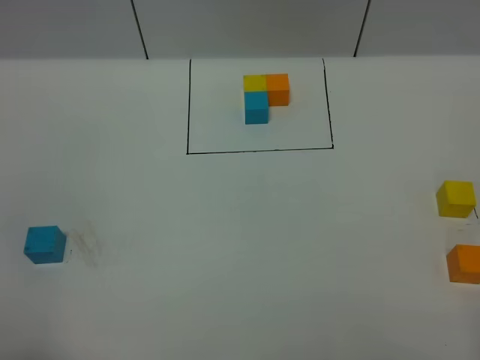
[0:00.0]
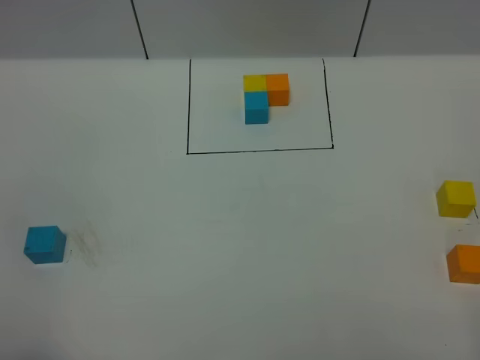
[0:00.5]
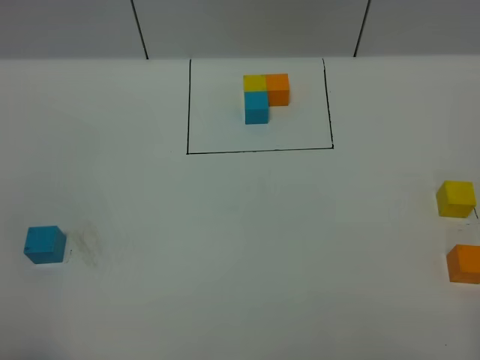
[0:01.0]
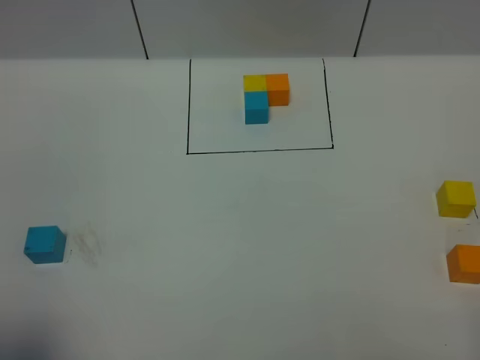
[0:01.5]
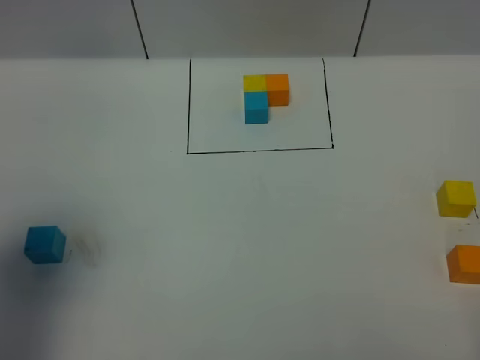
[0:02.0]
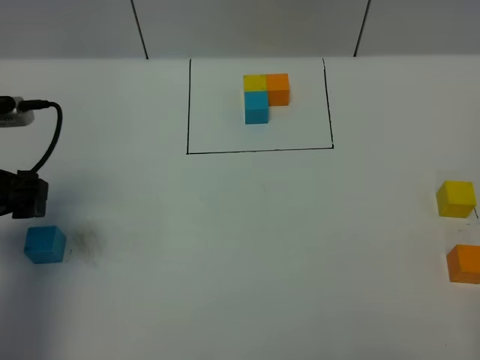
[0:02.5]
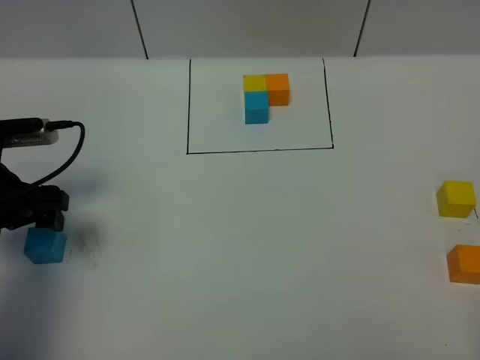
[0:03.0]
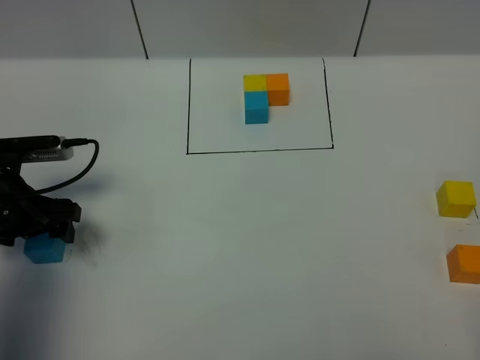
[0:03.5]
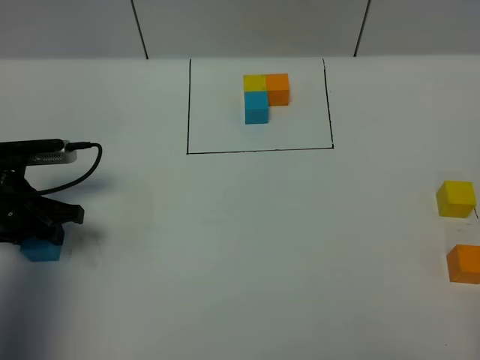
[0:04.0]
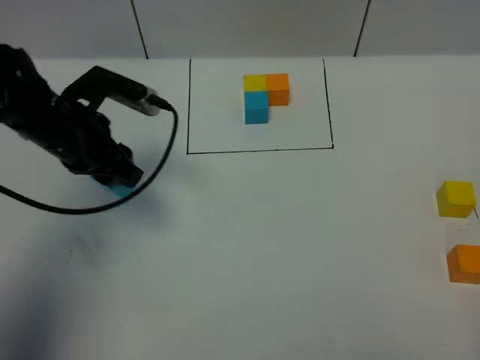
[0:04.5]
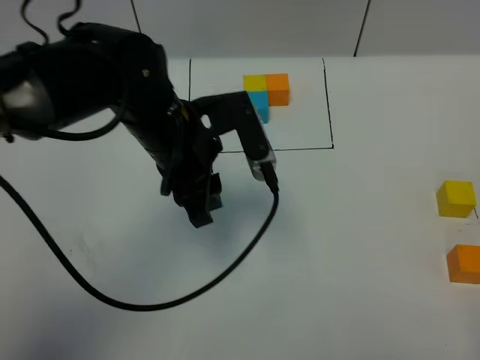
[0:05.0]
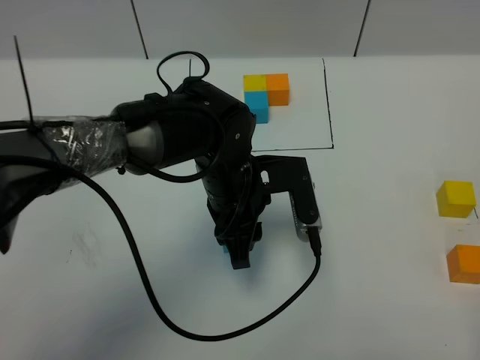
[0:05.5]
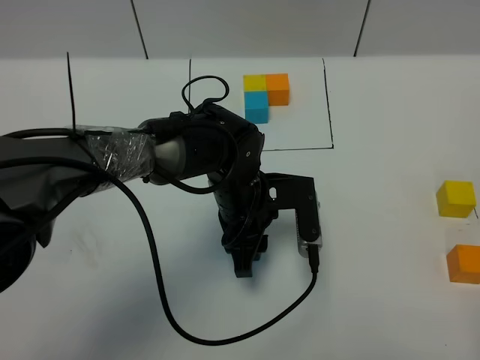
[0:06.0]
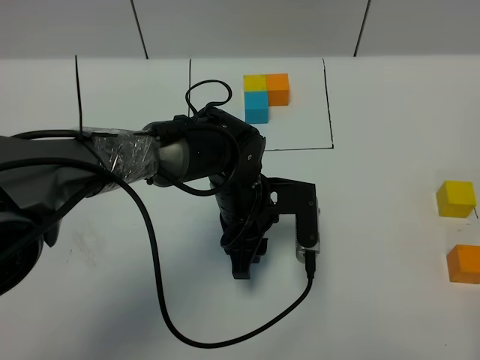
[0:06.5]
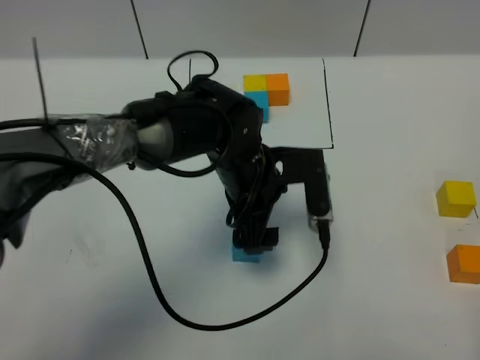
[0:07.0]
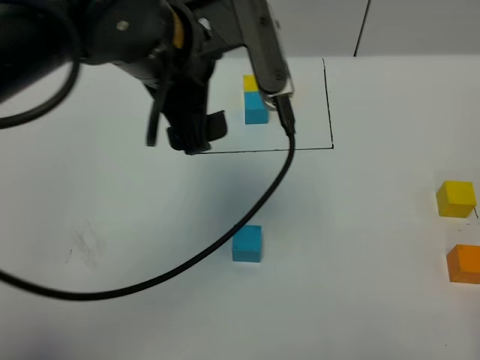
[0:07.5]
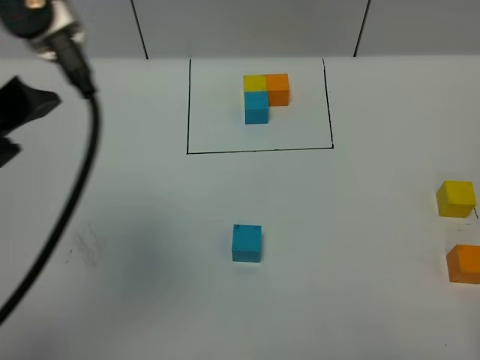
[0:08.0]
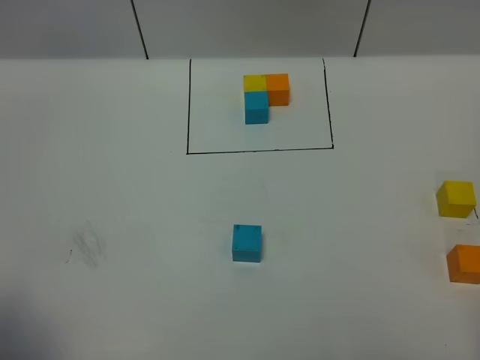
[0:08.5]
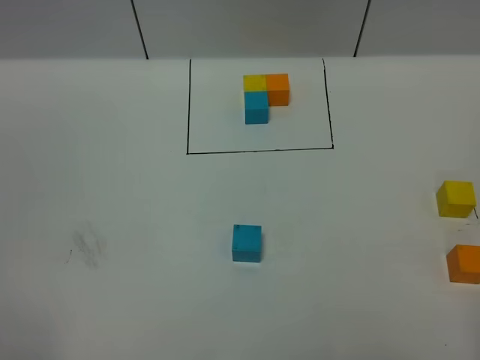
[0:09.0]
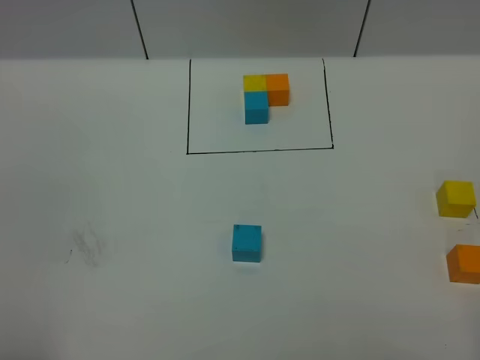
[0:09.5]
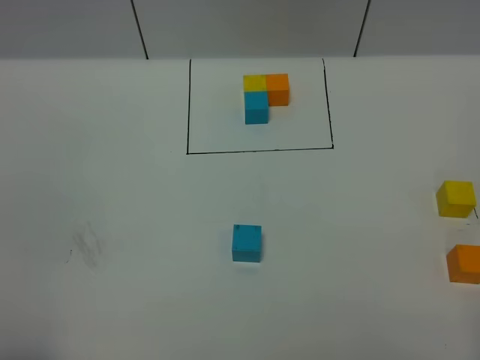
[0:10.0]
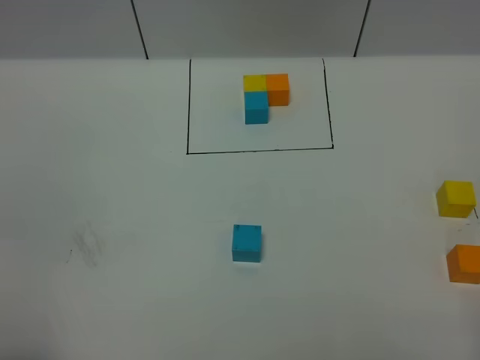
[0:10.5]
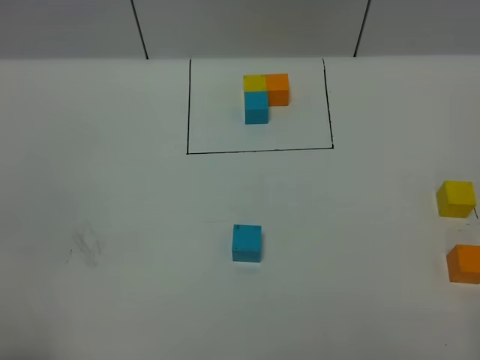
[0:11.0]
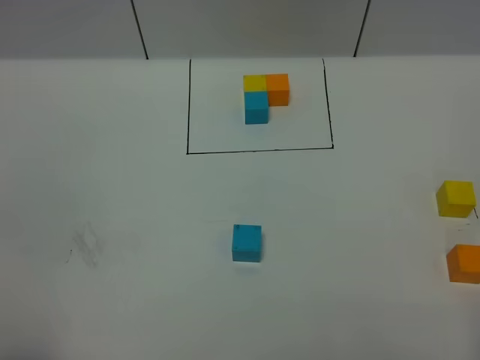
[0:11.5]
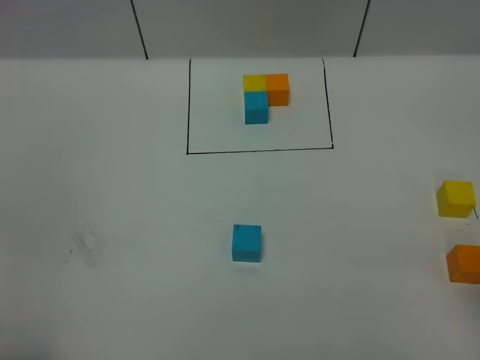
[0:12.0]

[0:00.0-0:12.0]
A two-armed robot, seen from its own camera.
Task of the whole recording: According to the building block template in front, assemble the scattered blocks together.
Step, 0:02.5 to 0:07.0: Put the blue cube in the center of the table.
0:00.0 to 0:02.0: The left gripper travels forward by about 20 cm.
0:02.0 to 0:04.0: The left gripper goes approximately 20 cm downward and forward, and closes up.
0:04.0 to 0:06.0: The left gripper moves to the right, roughly 30 cm.
0:06.0 to 0:08.0: The left gripper moves upward and to the left, some 40 cm, and opens up.
0:08.0 to 0:10.0: The left gripper heads downward, backward and to the left, covering some 30 cm.

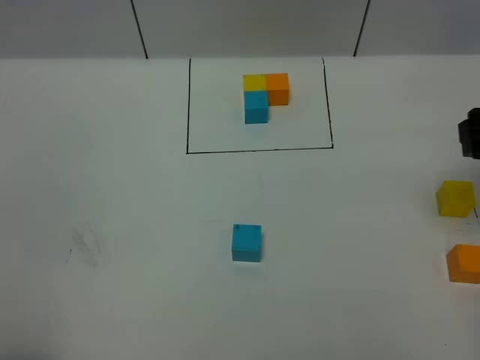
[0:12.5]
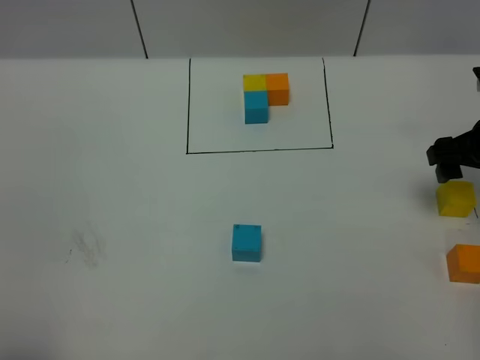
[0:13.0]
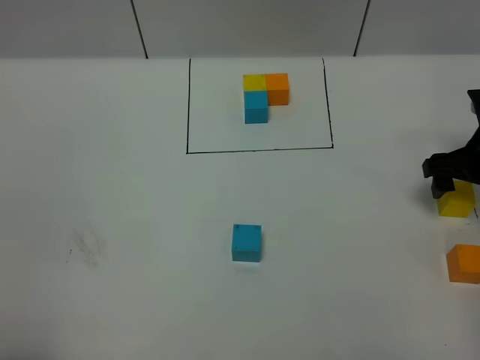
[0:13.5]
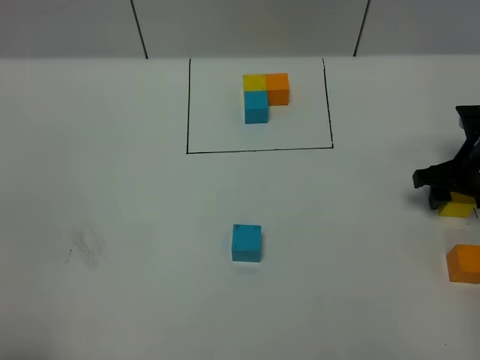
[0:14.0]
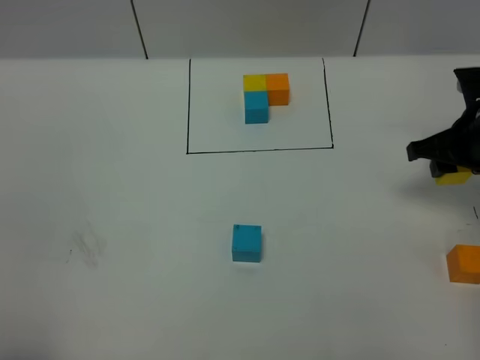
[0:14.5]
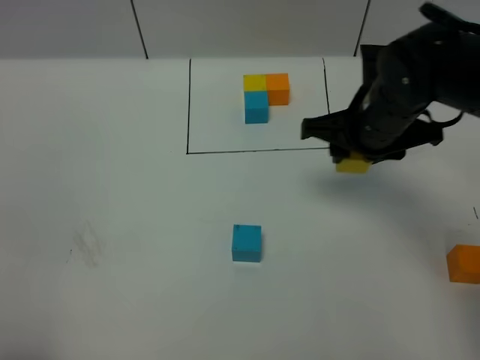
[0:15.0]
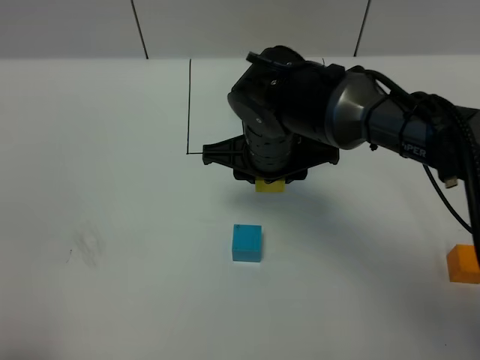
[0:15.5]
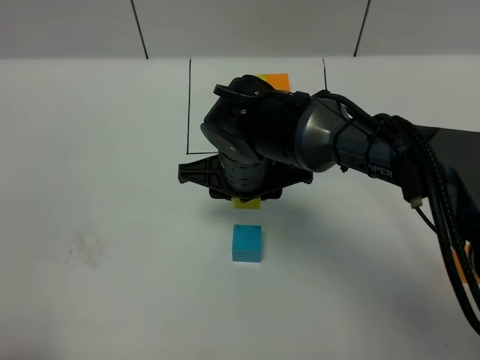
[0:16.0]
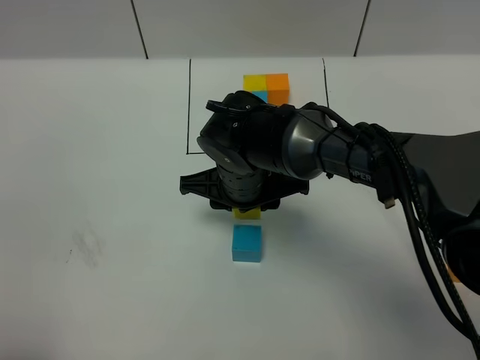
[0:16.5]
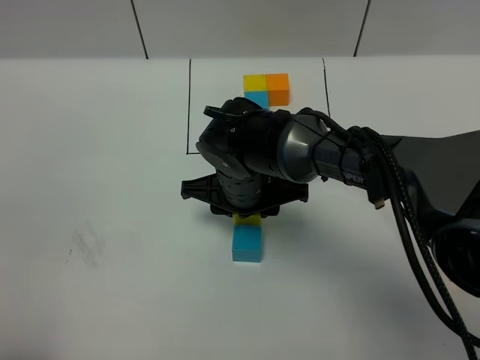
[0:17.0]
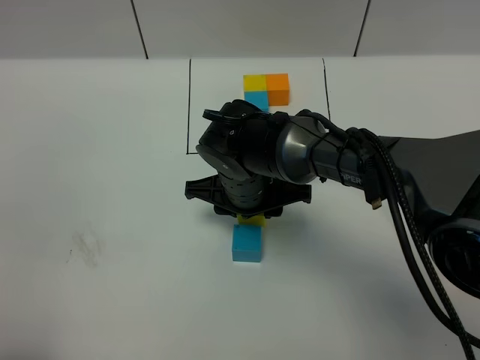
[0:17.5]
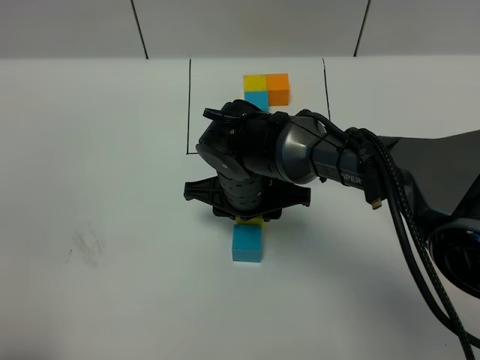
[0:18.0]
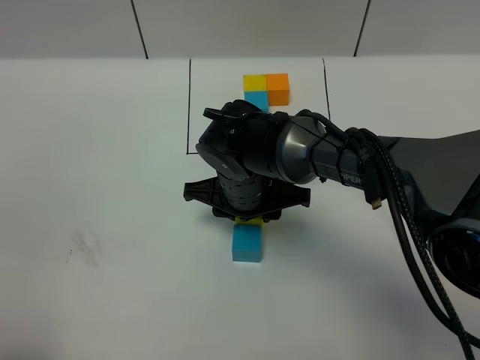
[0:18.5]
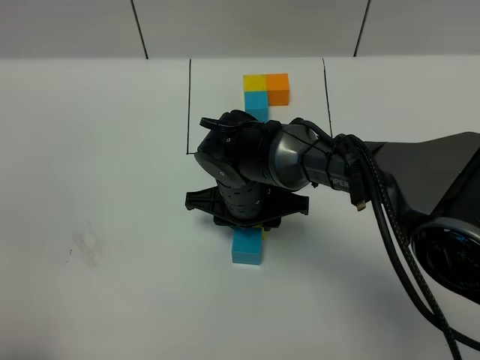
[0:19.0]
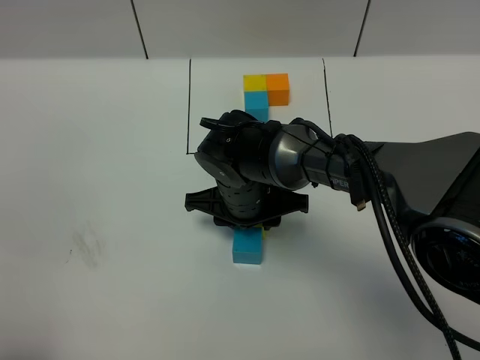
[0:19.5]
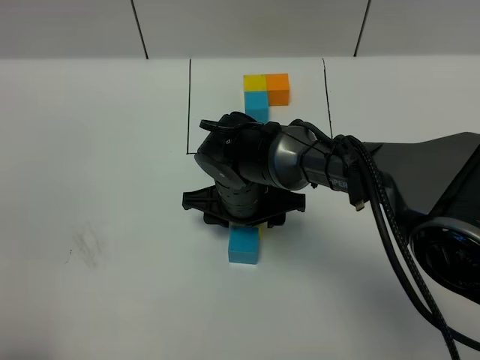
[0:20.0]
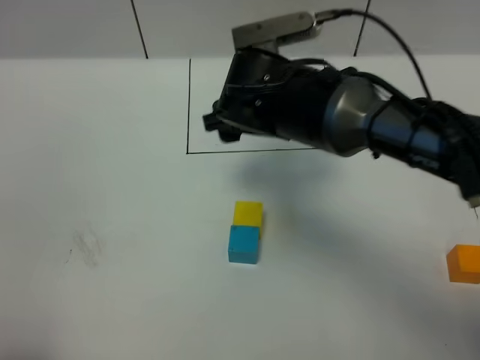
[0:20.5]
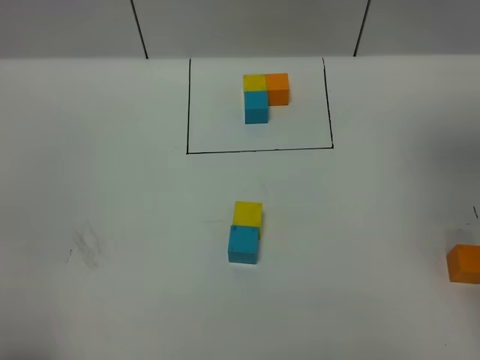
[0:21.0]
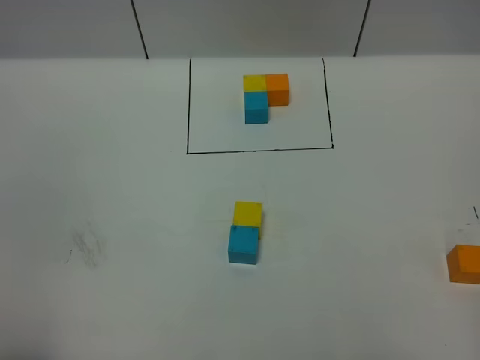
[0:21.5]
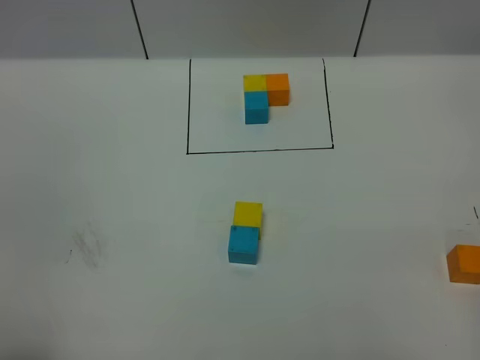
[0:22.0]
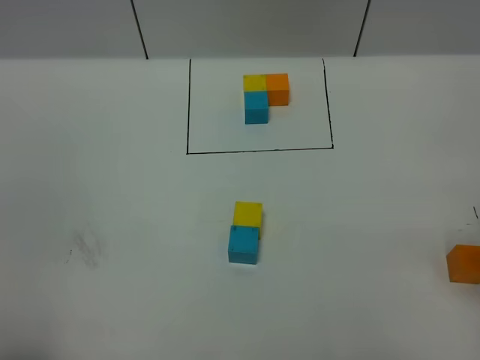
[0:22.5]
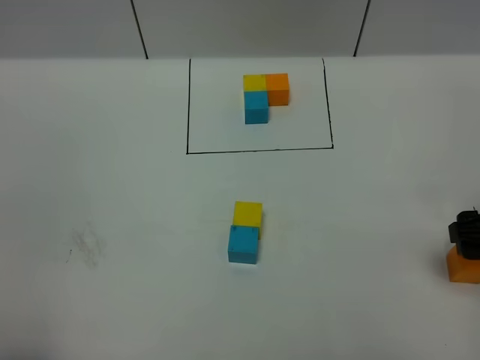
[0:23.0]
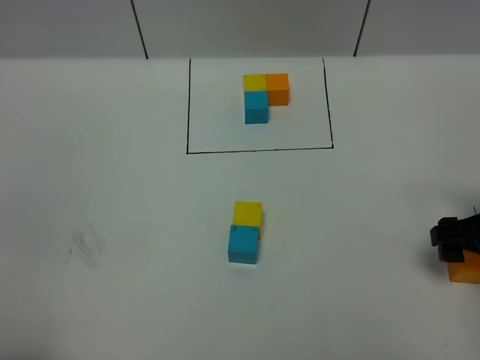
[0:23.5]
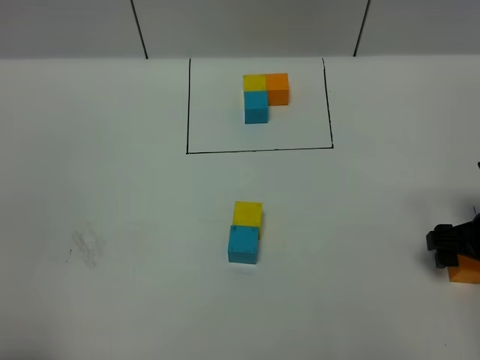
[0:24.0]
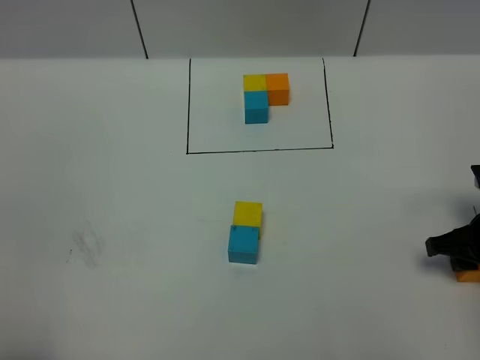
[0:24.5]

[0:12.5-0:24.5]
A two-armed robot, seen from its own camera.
Task of the whole recording: According to the building block template in front, assemble the scattered blocks together.
Step, 0:12.5 to 0:20.0: Put the yellow cube on the behind of the blue cube.
0:12.5 to 0:14.5: The right gripper is displaced downward and forward by roughly 10 cm, and closes its fingers.
0:14.5 to 0:16.5: The right gripper goes roughly 30 cm to the left.
0:16.5 to 0:18.5: Both grippers stay put.
0:18.5 to 0:20.5: The right gripper moves upward, about 10 cm, and opens.
0:20.5 to 0:22.5: The right gripper goes about 30 cm to the right and backward.
0:22.5 to 0:24.5: The right gripper heads downward, covering about 15 cm, and closes.

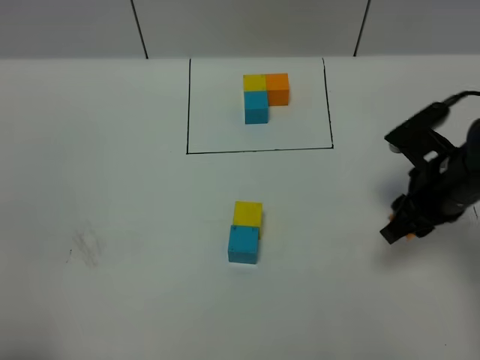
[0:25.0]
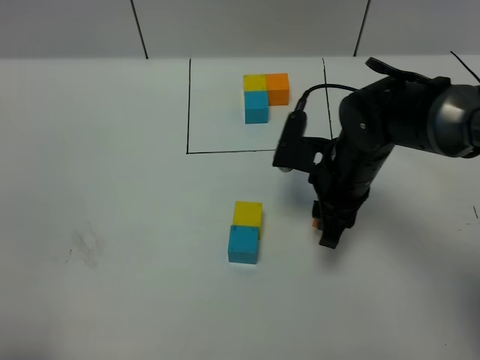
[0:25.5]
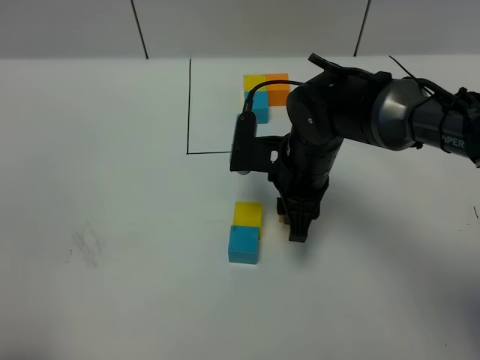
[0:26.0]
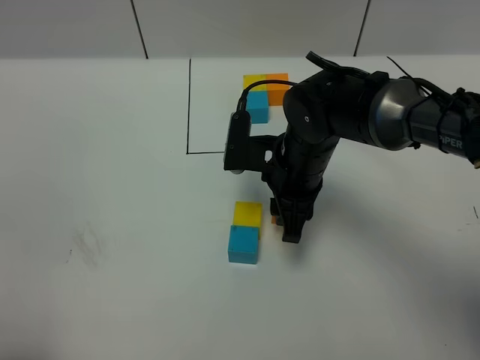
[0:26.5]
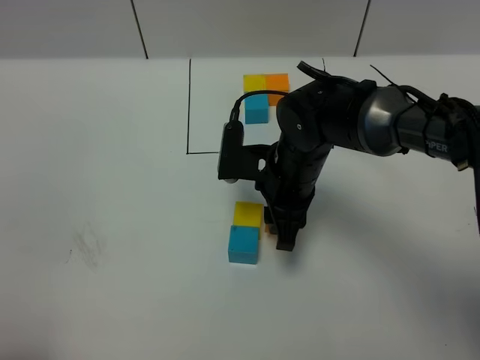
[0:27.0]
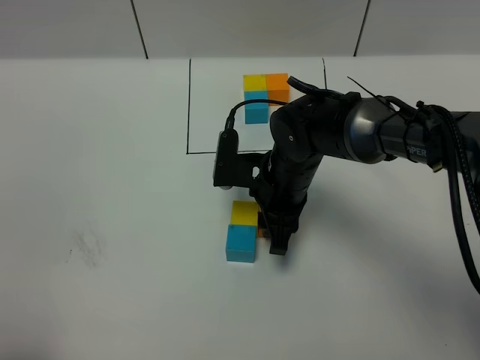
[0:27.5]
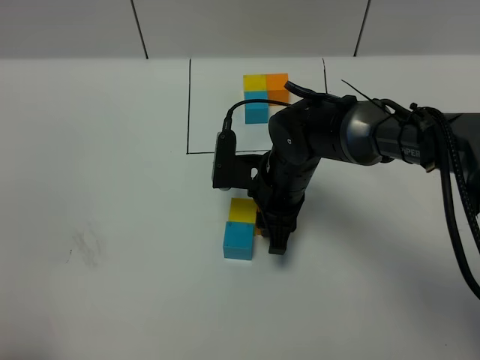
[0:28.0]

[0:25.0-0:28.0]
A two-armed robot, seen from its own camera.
Task of the whole recording: According to the building block template in front, assemble the scattered blocks together.
0:25.0 to 0:26.5: The right gripper moves to the left, roughly 15 cm.
0:26.5 to 0:28.0: The grippers stay close to where they were, moving slightly.
